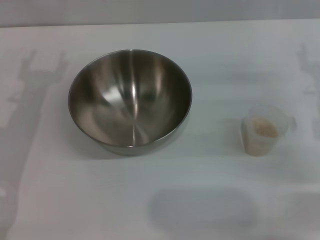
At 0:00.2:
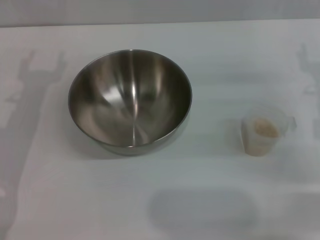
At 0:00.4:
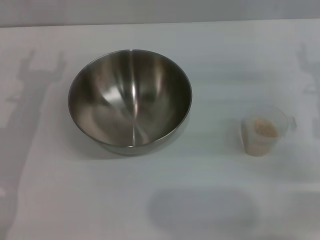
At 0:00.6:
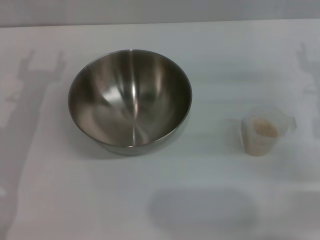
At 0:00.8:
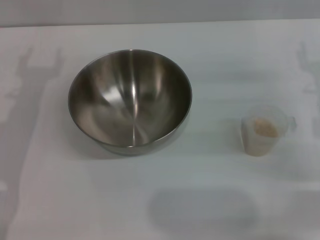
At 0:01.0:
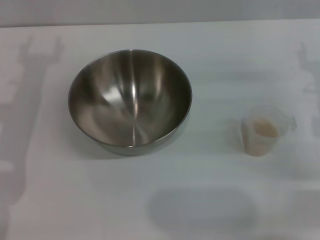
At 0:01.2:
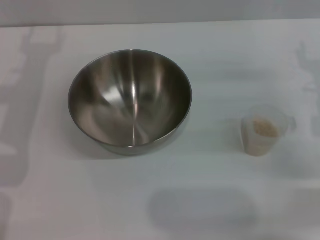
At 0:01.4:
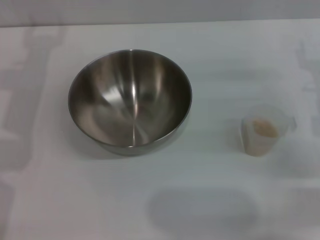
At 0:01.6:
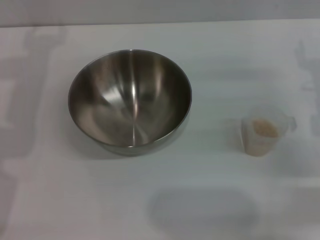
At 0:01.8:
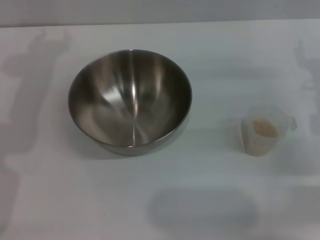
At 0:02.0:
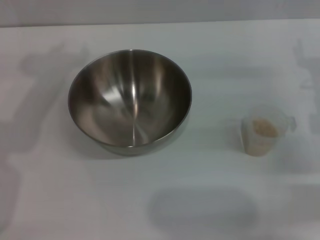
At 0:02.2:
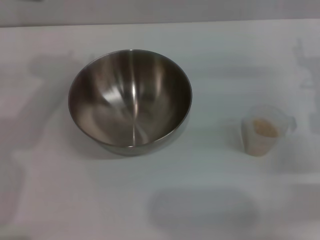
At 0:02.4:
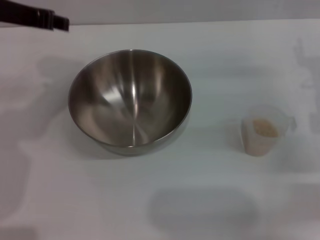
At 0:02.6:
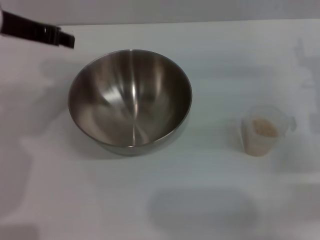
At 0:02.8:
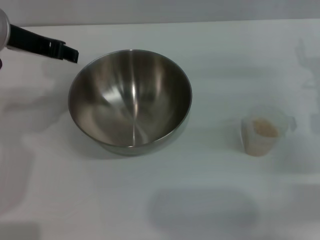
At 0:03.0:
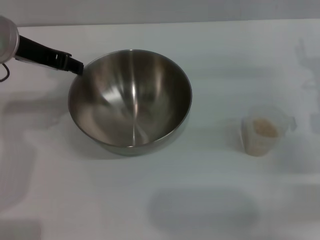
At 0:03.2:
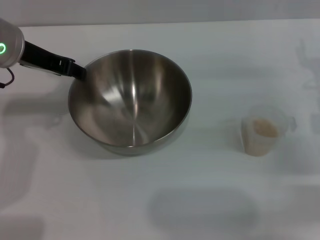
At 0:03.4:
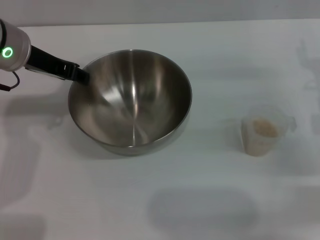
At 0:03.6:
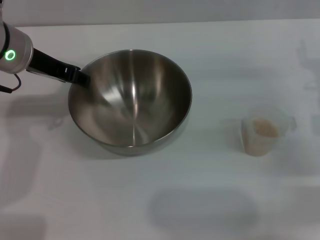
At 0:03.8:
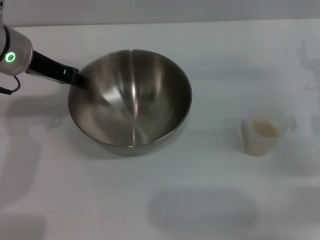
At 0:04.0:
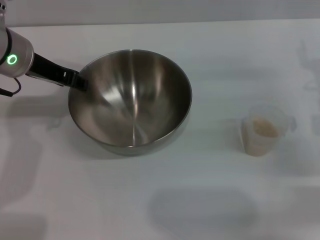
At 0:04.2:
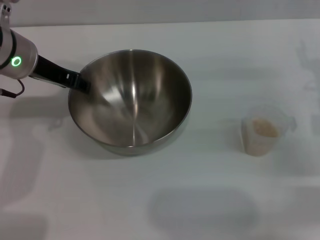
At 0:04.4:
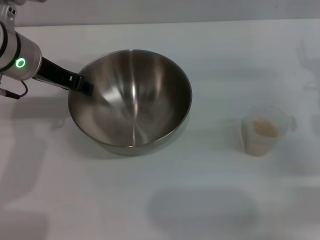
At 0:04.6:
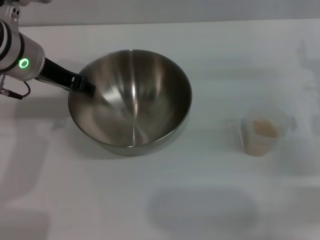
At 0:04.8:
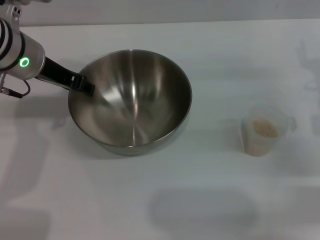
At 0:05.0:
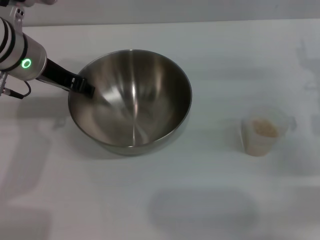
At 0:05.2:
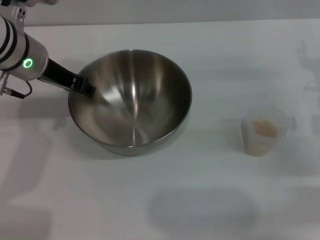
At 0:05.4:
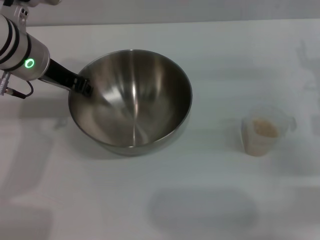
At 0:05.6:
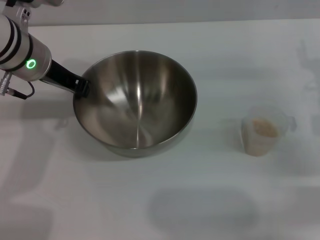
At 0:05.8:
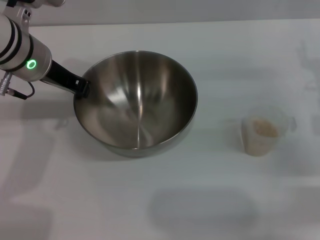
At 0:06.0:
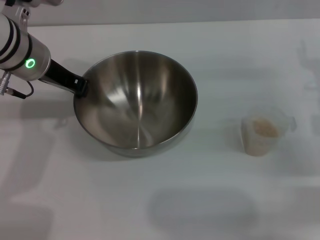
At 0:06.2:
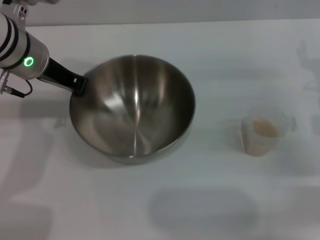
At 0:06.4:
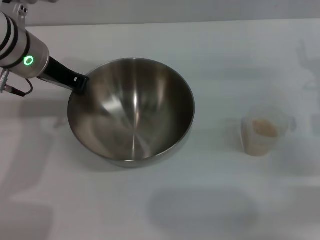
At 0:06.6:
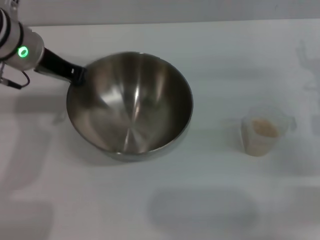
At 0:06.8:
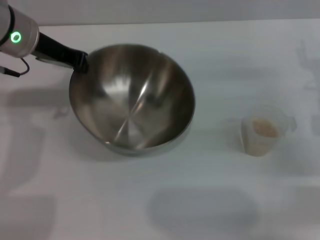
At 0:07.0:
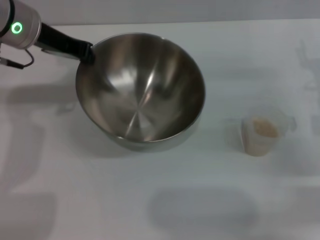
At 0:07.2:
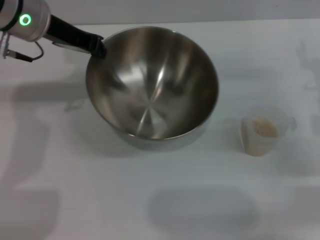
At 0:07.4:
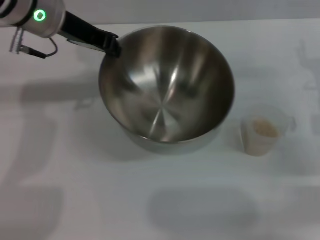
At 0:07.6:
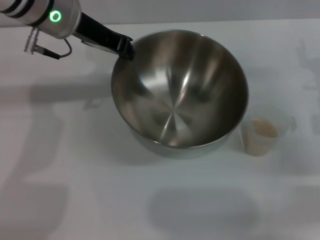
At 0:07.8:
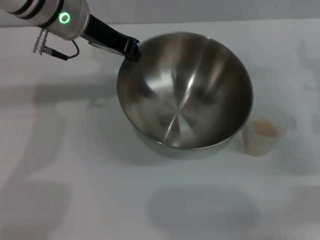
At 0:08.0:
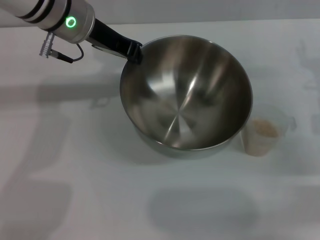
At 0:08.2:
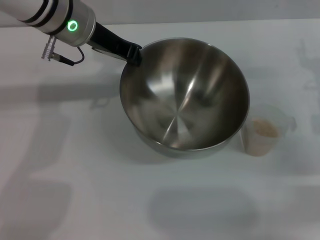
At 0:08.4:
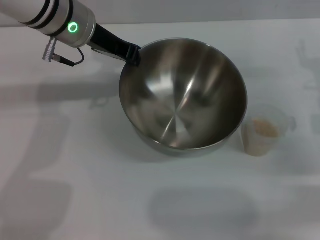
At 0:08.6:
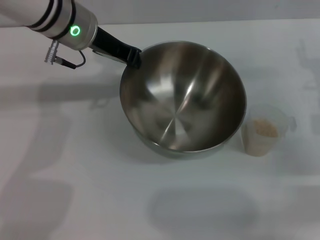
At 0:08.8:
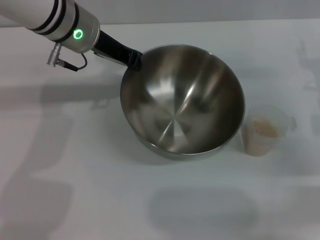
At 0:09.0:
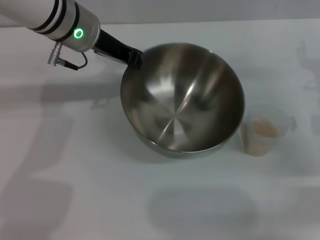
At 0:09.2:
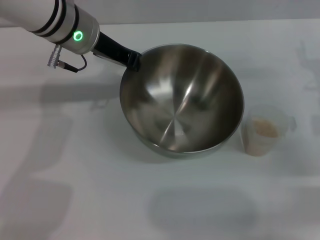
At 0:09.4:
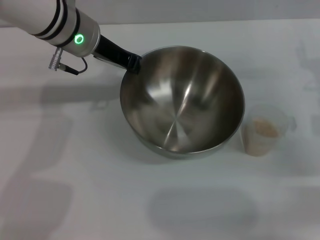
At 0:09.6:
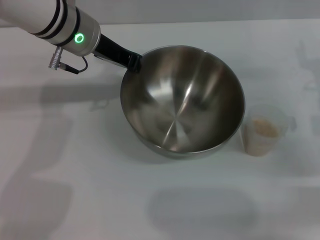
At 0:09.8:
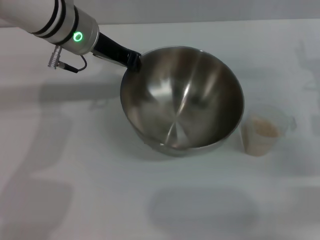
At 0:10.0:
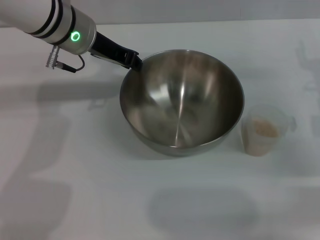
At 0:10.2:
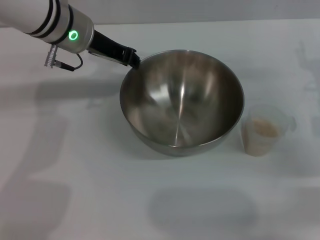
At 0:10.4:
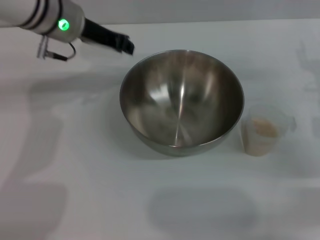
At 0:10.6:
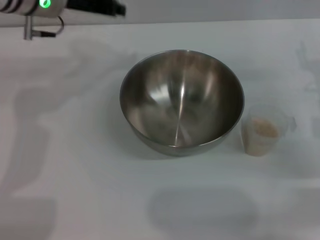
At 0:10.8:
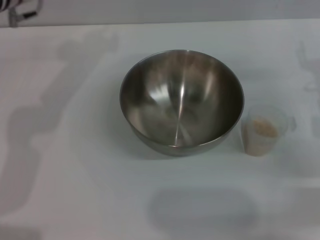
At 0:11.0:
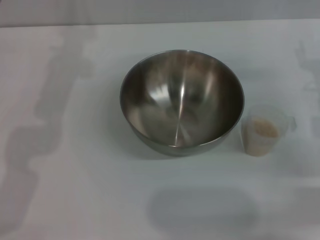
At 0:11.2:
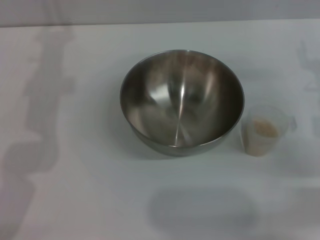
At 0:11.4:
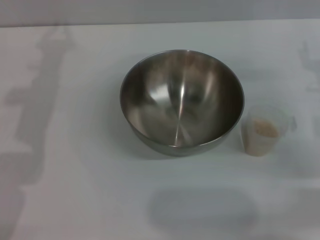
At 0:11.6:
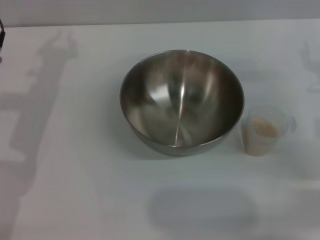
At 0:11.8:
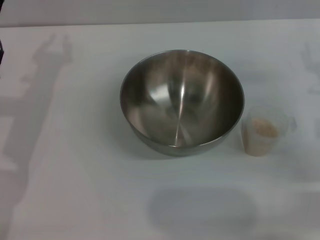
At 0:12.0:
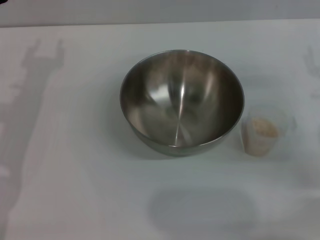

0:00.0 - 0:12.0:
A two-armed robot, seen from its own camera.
Task of the whole recording: Place the bowl in the middle of the table with one hand and pour the rice from the grain cup into it with the other hand.
Step, 0:00.0 - 0:07.6: Pick up the bowl with the left gripper.
Step, 0:07.8 - 0:10.6: Place the bowl in the center of view with the left gripper.
0:01.6 - 0:03.0: The left gripper moves roughly 5 cm.
0:03.0 - 0:04.4: The grippers move only a little.
0:04.4 - 0:06.0: The left gripper closes its fingers.
0:06.0 - 0:07.6: The left gripper shifts by roughly 5 cm.
0:07.6 - 0:10.4: The grippers make only small movements.
0:10.4 - 0:12.0: The left gripper travels to the left, backward and downward by about 15 cm.

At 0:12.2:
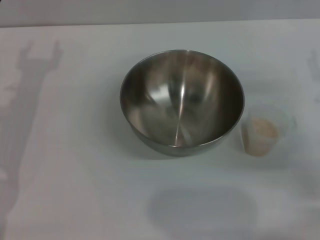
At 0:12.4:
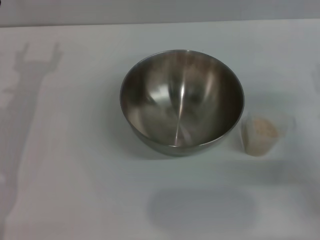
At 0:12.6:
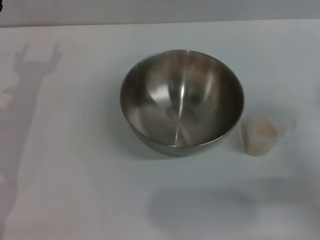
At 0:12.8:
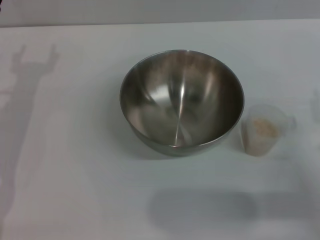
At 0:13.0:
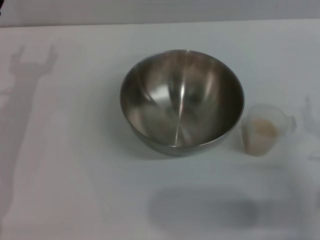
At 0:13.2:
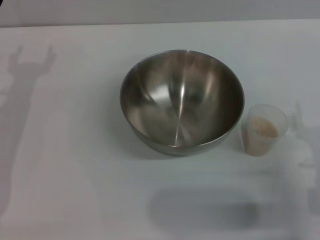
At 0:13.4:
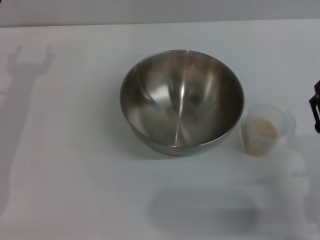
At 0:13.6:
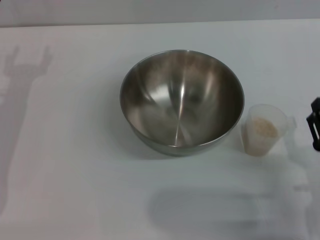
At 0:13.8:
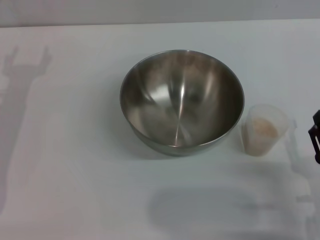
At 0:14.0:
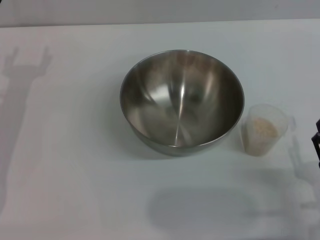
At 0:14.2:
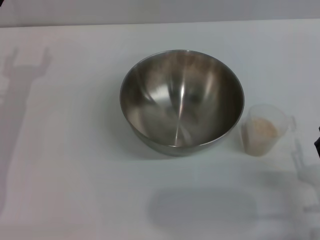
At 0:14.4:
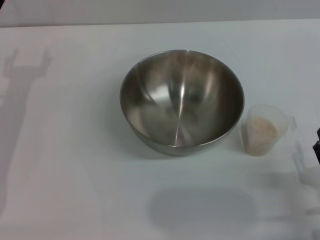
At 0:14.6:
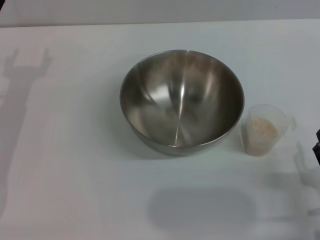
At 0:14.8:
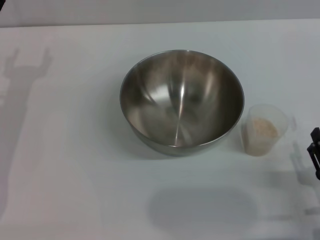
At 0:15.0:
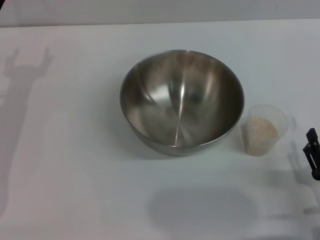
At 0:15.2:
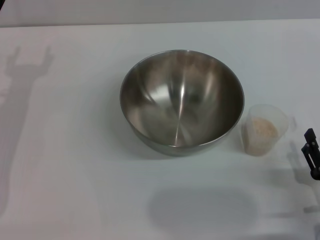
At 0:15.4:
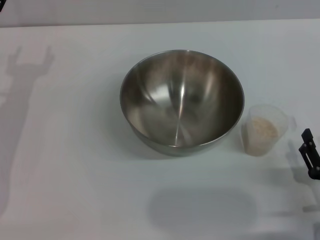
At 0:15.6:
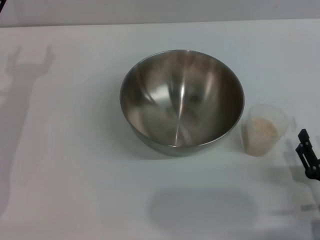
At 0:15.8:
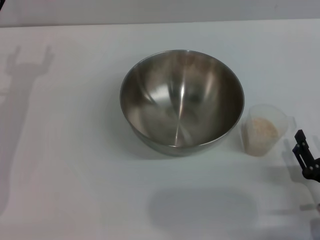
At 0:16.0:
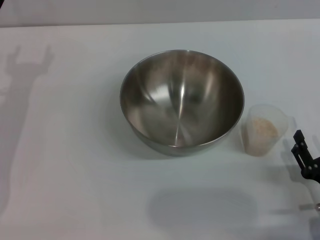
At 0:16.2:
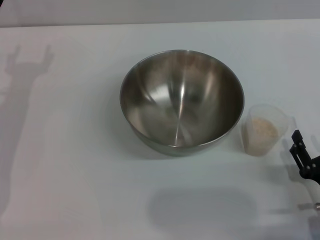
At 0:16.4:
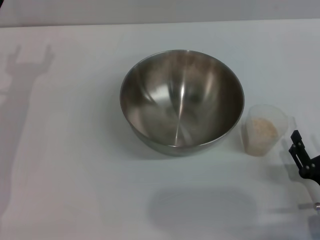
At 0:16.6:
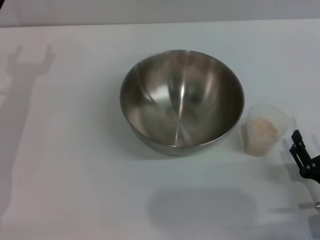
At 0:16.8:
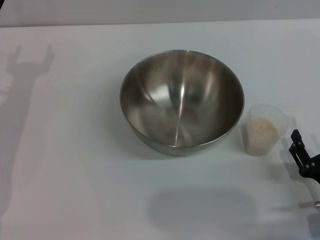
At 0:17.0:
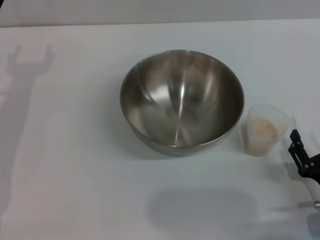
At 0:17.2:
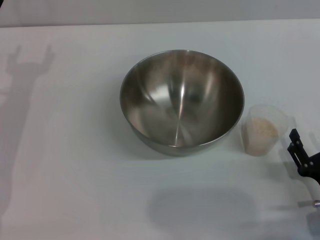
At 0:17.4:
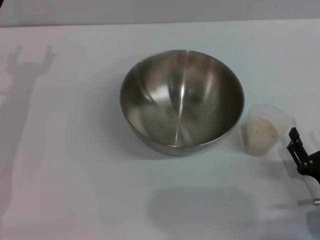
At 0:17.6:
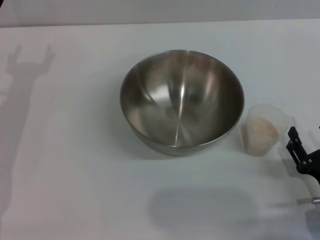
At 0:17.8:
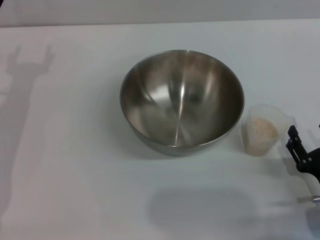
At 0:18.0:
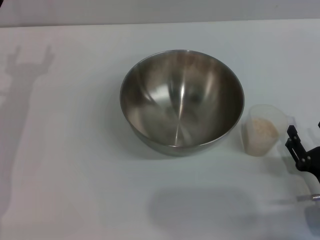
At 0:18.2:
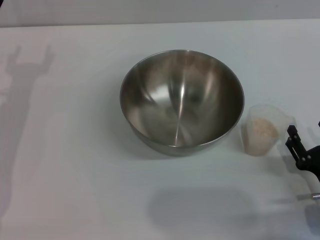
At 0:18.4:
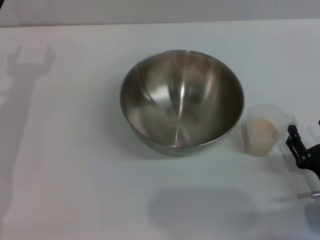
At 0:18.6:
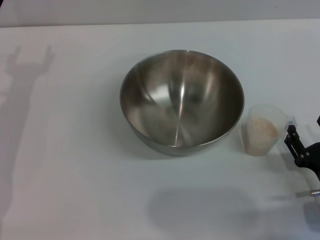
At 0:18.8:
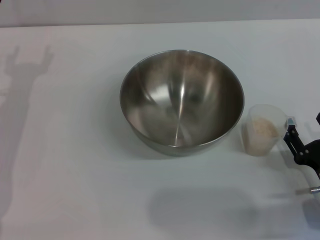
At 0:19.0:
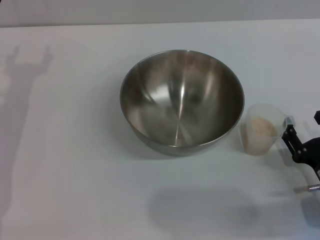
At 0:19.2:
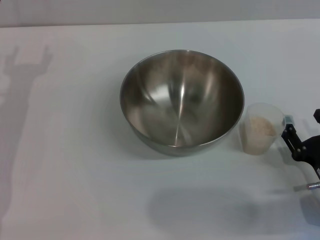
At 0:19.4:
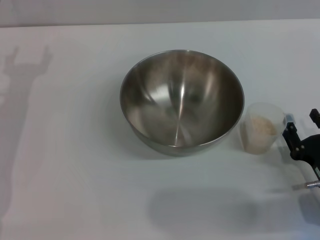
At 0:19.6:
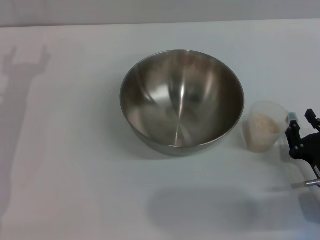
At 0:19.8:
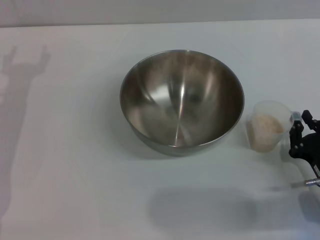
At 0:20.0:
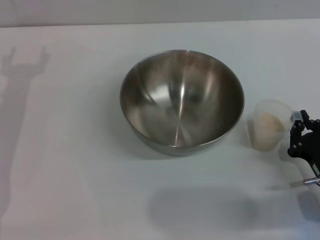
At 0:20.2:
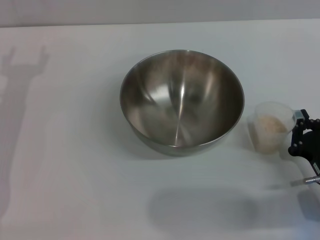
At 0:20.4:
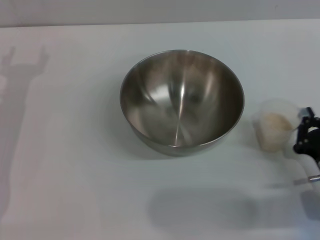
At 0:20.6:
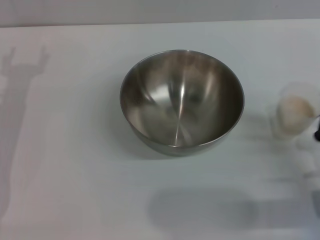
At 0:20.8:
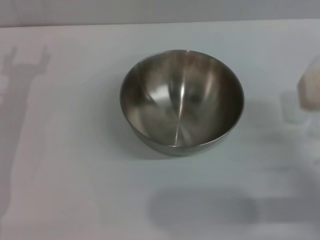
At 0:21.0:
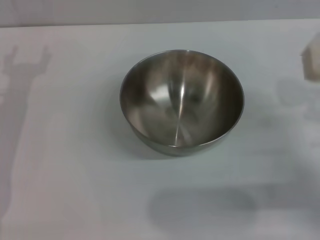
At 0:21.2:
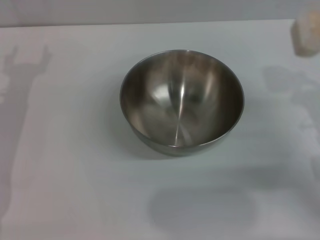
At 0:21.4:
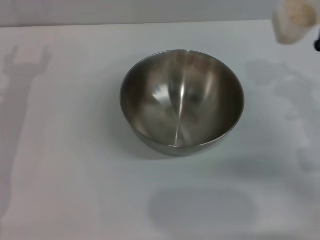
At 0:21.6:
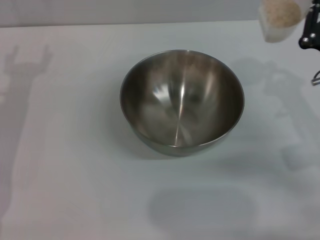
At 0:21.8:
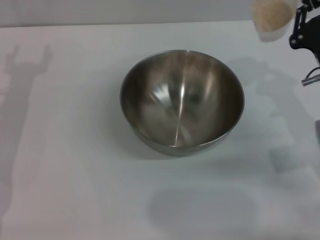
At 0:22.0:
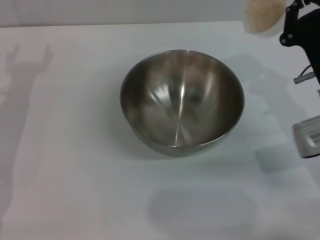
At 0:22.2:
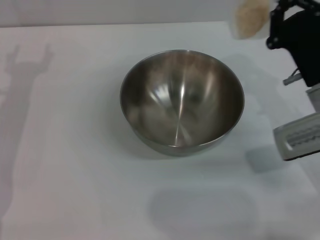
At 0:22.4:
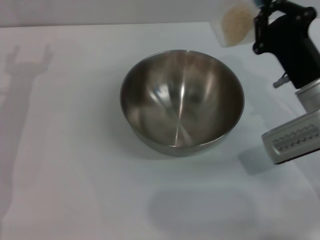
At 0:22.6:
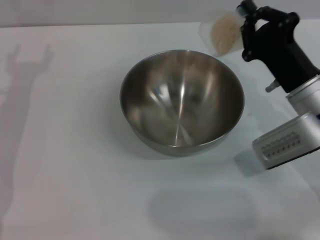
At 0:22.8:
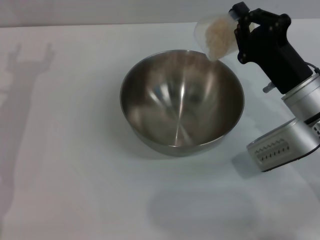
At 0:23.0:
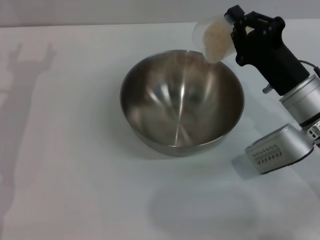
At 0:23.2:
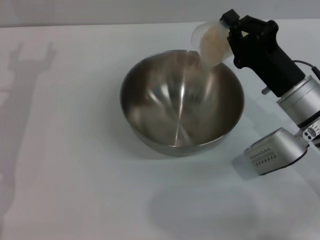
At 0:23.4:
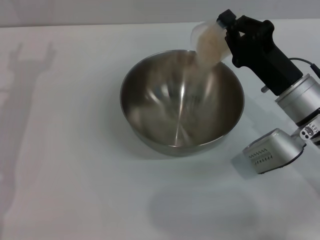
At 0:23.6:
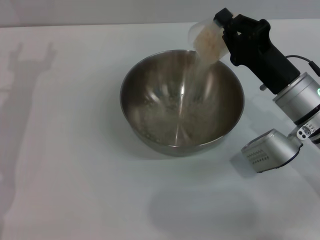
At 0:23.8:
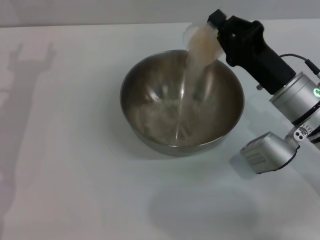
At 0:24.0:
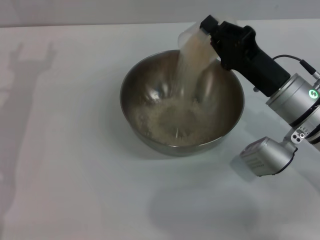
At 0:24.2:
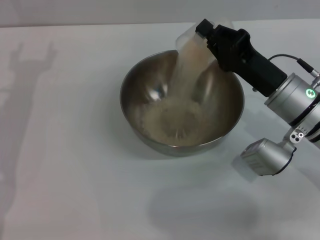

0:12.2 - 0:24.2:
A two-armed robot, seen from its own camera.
Task of the whole recording: Place the bowl in the middle of the table with one hand and pour the rice from the grain cup into it with the other hand.
Step, 0:12.2 - 0:20.6: Pick up the cup with rice in it with the right gripper.
0:12.2 - 0:13.8: The right gripper is displaced backward and to the left by about 20 cm.
0:13.8 - 0:18.2: The grippers make only small movements.
0:18.2 - 0:19.8: The right gripper closes its fingers.
0:19.8 - 0:21.2: The right gripper moves forward and upward, some 10 cm, and closes up.
0:21.2 - 0:22.6: The right gripper heads to the left, covering some 10 cm.
